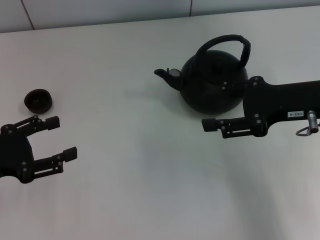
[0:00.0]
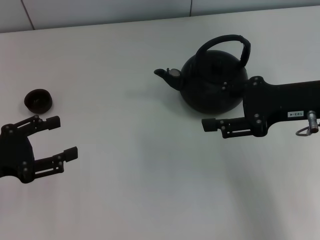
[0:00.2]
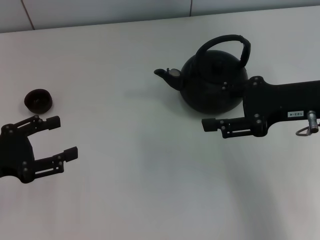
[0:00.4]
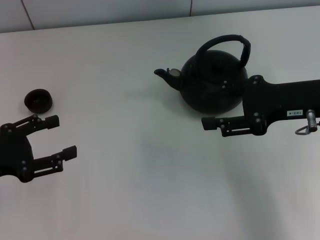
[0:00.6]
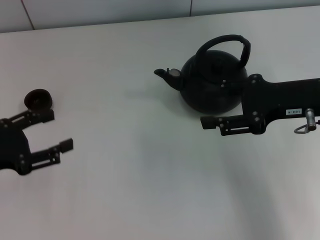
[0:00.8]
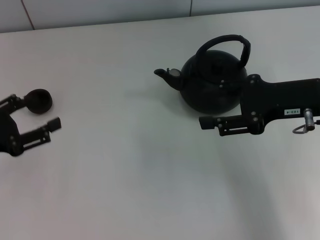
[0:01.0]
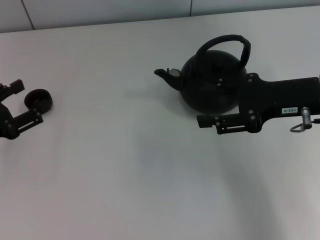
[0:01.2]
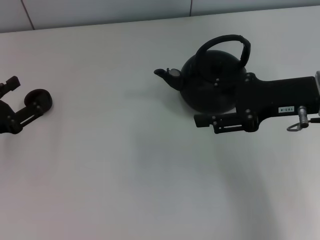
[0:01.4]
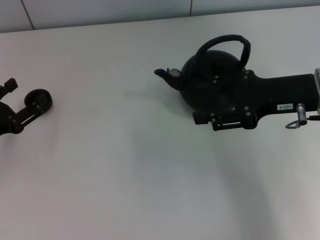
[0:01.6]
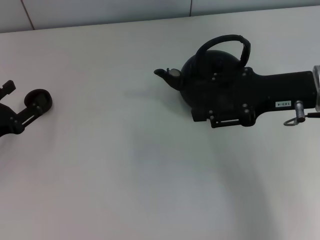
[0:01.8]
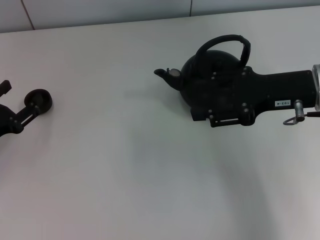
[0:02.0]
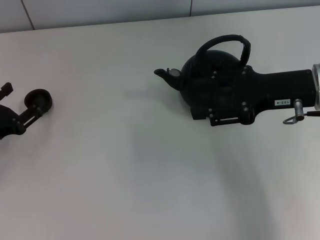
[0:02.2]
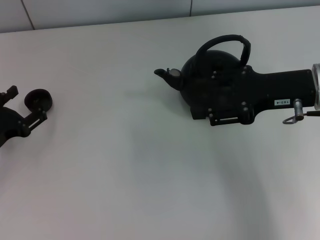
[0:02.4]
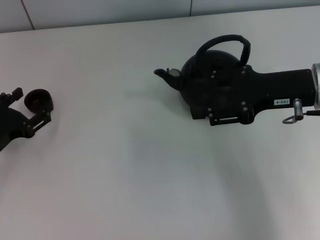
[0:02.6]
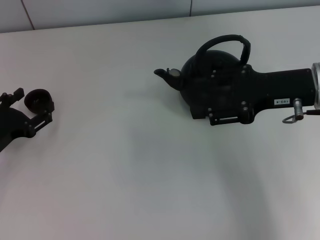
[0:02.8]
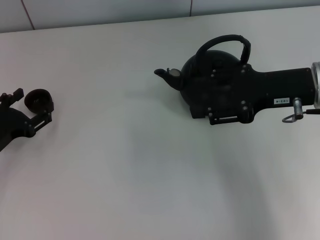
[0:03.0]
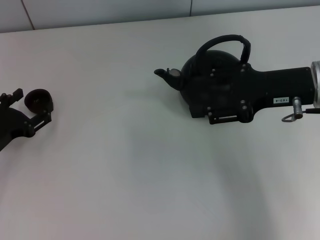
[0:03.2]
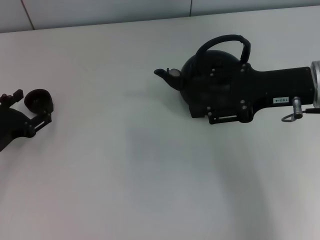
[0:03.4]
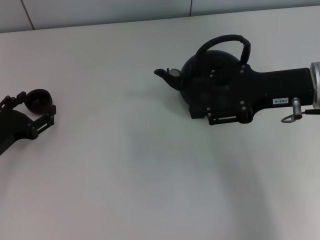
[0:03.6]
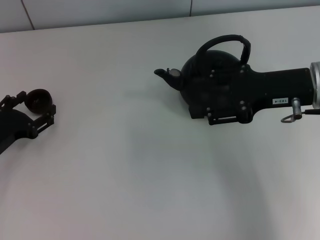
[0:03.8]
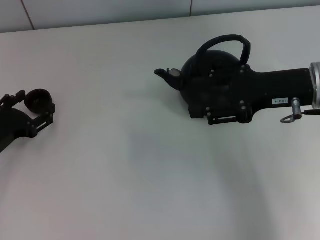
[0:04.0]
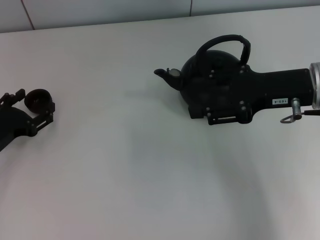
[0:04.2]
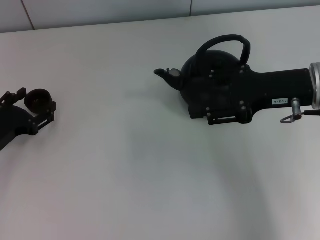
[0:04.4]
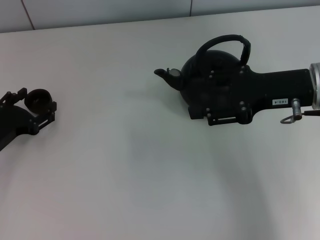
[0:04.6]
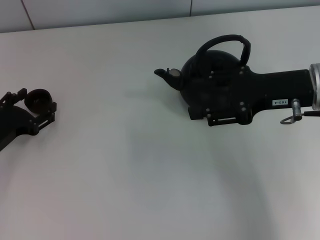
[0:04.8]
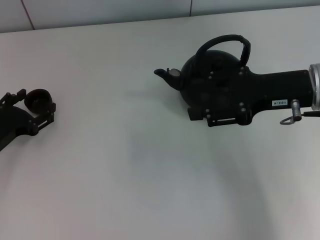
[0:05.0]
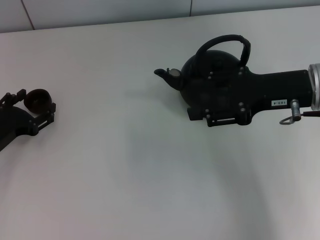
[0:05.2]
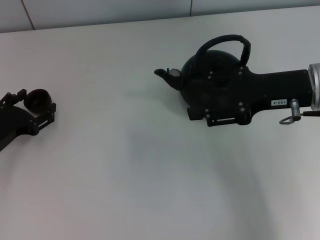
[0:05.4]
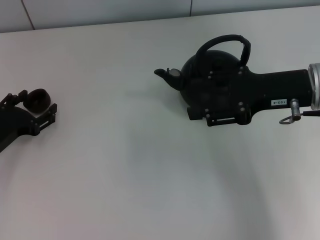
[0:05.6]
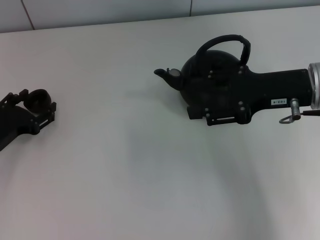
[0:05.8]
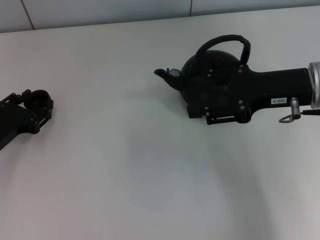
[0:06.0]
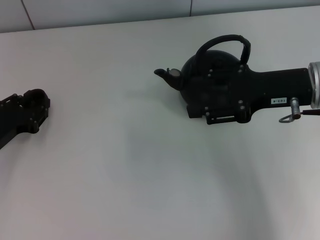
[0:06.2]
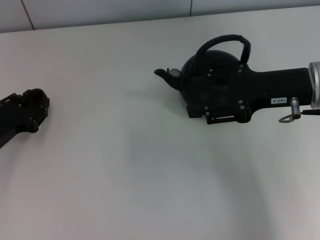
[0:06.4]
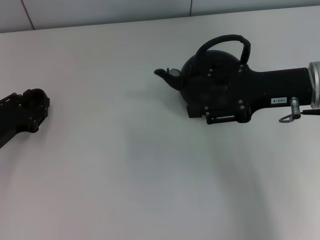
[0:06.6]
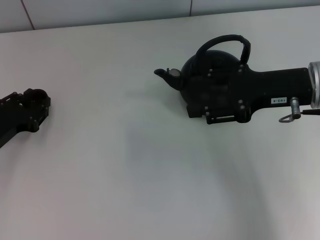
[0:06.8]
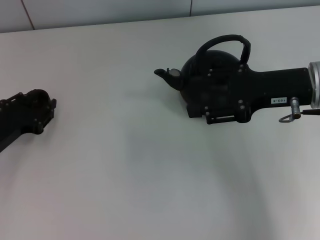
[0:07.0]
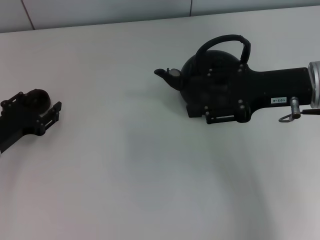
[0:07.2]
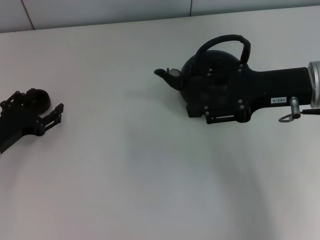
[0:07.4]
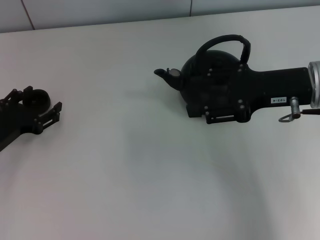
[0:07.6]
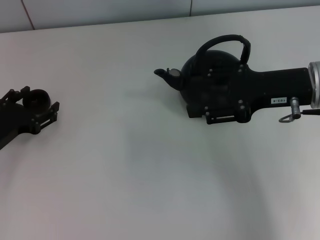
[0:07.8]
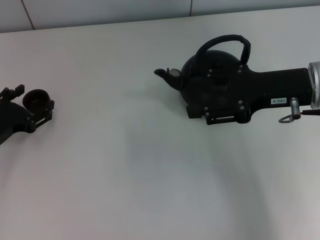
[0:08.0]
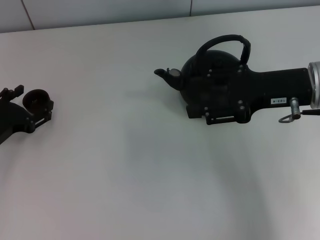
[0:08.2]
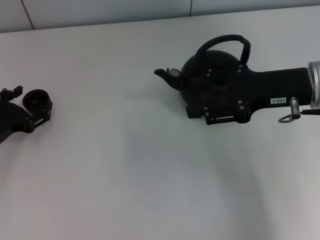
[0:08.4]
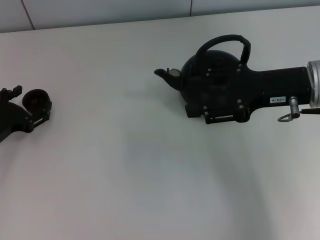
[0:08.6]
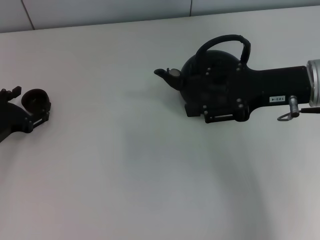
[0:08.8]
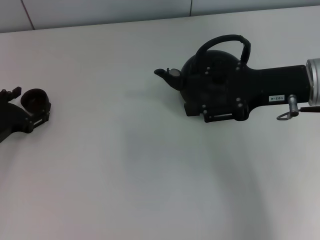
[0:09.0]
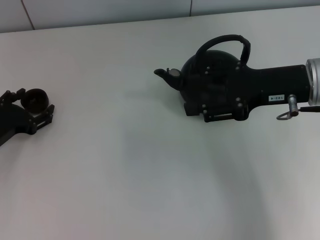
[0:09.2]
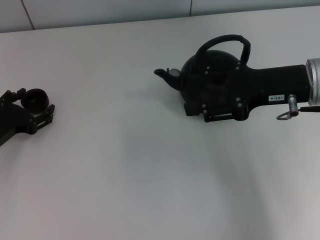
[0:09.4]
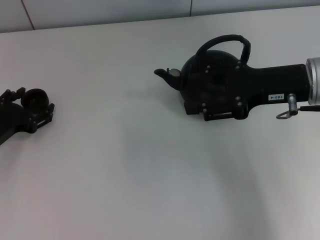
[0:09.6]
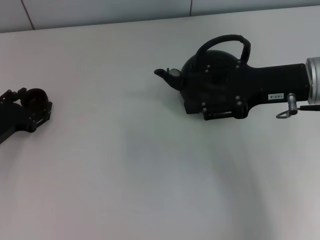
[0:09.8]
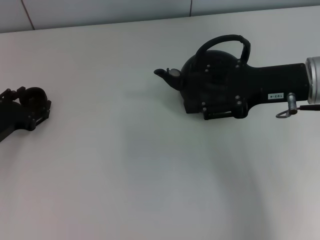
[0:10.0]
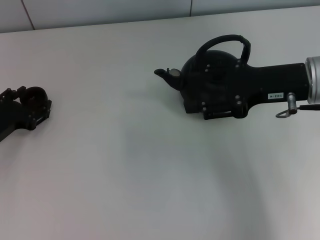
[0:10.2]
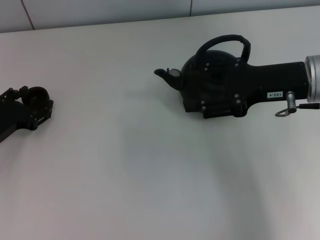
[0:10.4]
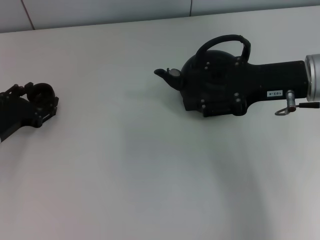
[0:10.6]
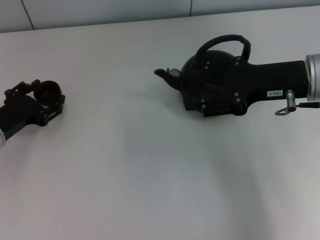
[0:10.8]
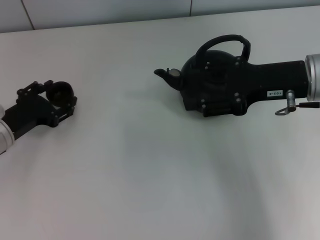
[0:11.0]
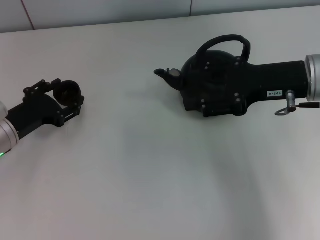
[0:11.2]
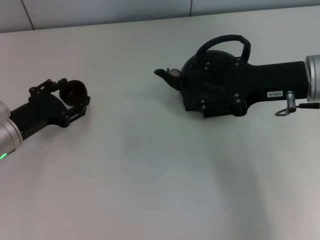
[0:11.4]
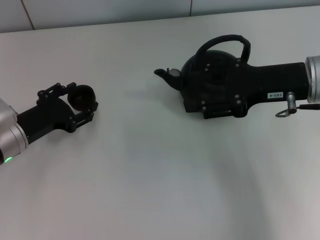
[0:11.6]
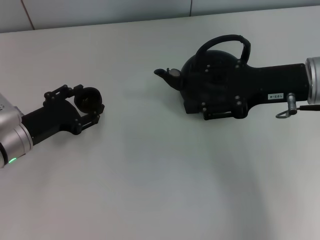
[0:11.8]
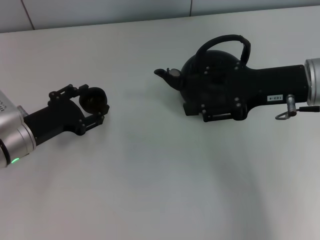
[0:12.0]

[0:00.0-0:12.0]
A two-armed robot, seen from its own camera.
Task of the whole recording: Grasp the handle of the teapot with one hand and pour tea into the teacup.
Step, 0:00.0 to 0:10.8: Pick up the teacup with the left gripper.
0:00.0 to 0:01.6: The left gripper moves roughly 5 cm.
0:01.6 to 0:03.0: The grippers make only small movements.
0:03.0 to 0:04.4: Both grippers stay put.
0:04.4 to 0:06.0: The two grippers keep their place.
0:06.0 to 0:07.6: The left gripper closes, then reopens.
0:07.6 to 0:09.0: There are only small adjustments of the grippers.
0:09.0 to 0:10.4: Both grippers stay about where they are.
0:10.4 to 0:12.0: The left gripper is displaced to the right by some 5 cm.

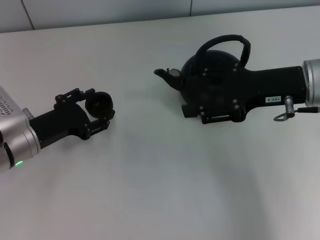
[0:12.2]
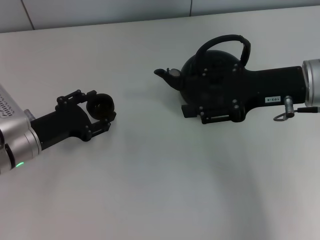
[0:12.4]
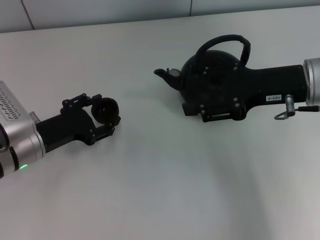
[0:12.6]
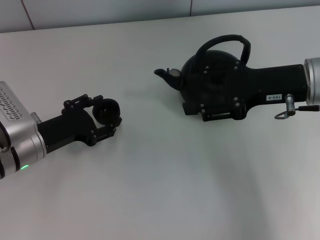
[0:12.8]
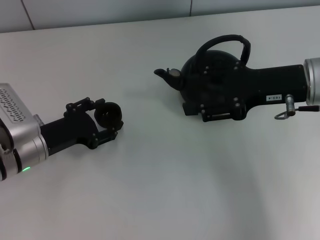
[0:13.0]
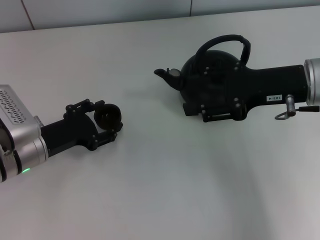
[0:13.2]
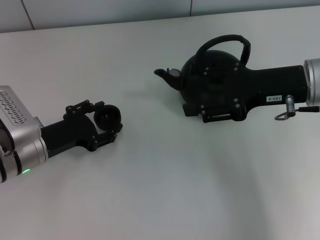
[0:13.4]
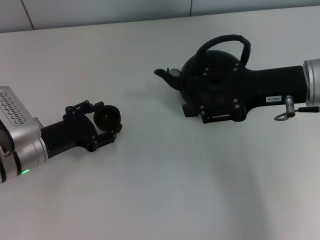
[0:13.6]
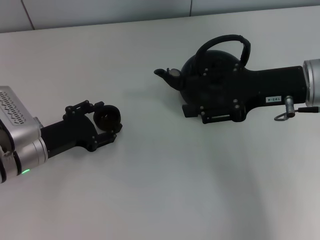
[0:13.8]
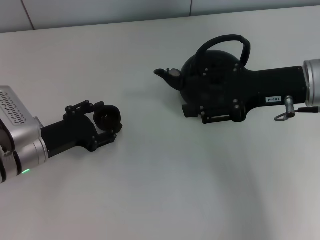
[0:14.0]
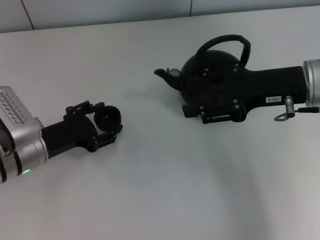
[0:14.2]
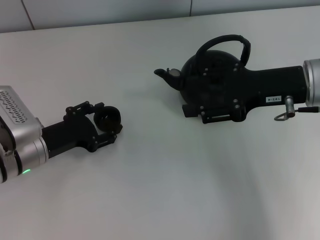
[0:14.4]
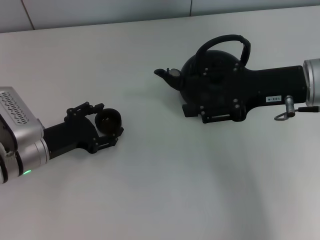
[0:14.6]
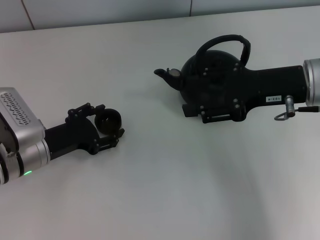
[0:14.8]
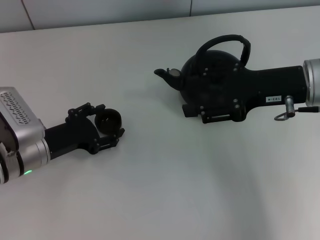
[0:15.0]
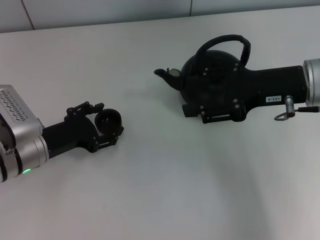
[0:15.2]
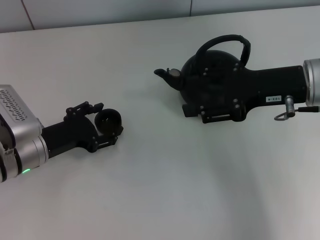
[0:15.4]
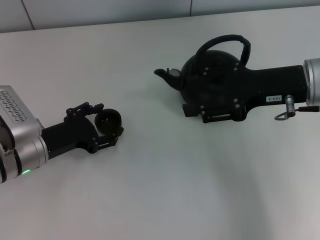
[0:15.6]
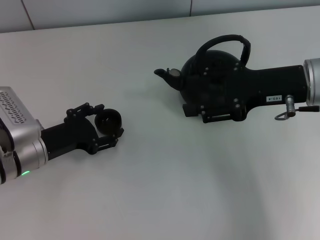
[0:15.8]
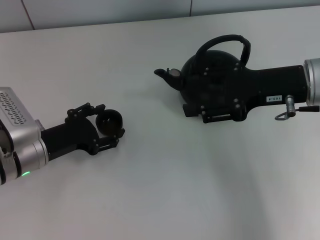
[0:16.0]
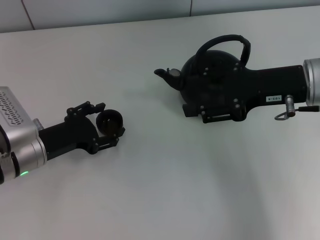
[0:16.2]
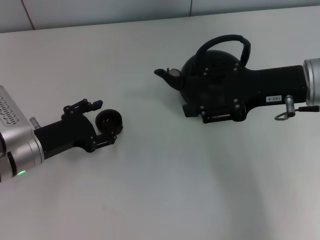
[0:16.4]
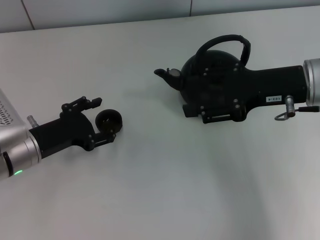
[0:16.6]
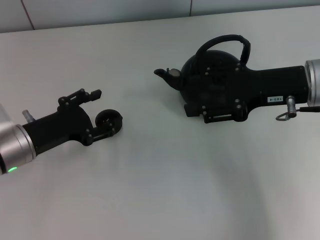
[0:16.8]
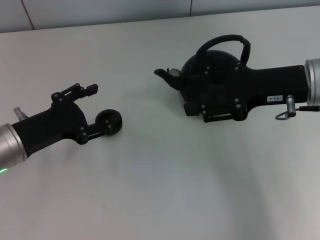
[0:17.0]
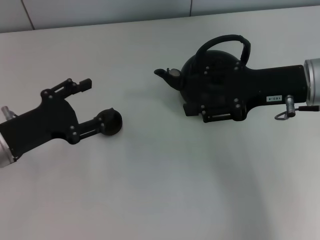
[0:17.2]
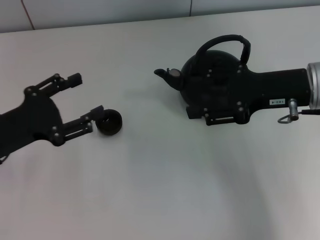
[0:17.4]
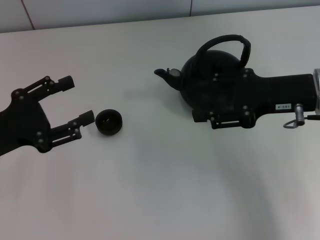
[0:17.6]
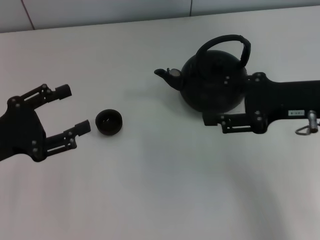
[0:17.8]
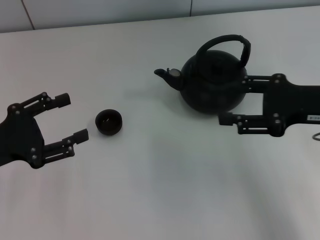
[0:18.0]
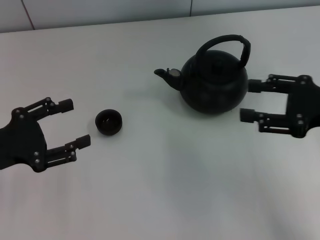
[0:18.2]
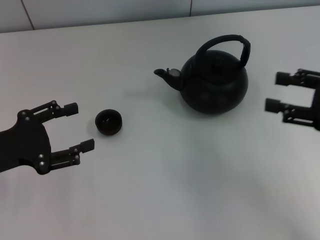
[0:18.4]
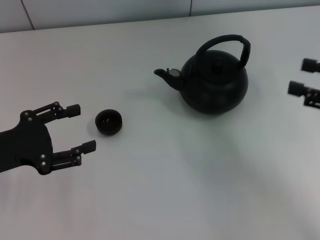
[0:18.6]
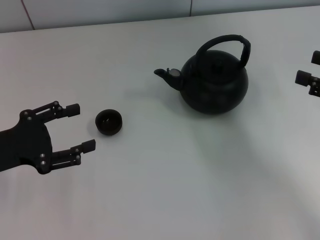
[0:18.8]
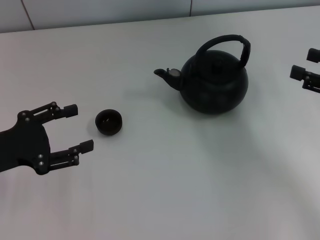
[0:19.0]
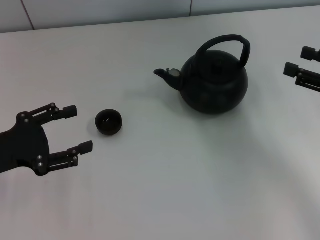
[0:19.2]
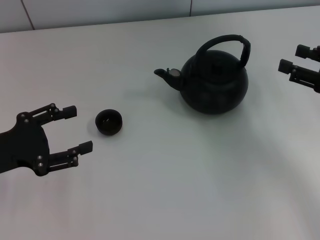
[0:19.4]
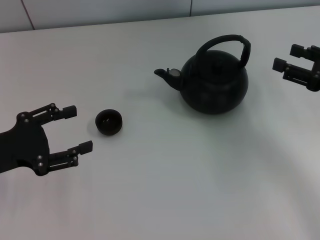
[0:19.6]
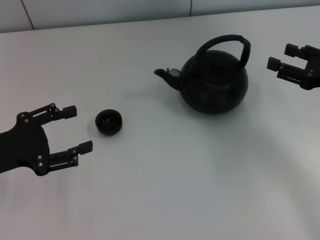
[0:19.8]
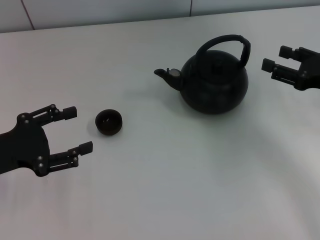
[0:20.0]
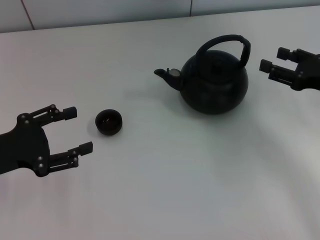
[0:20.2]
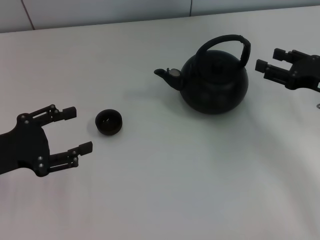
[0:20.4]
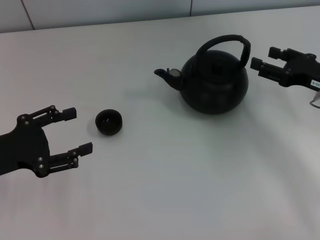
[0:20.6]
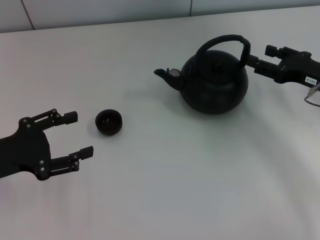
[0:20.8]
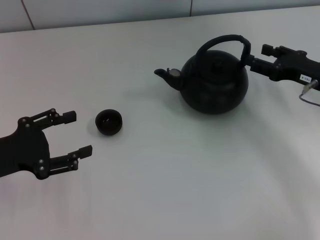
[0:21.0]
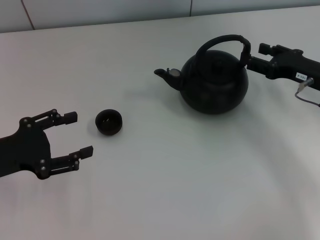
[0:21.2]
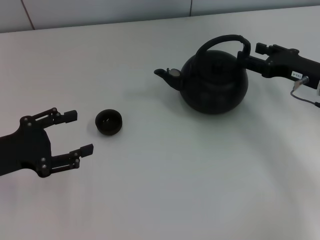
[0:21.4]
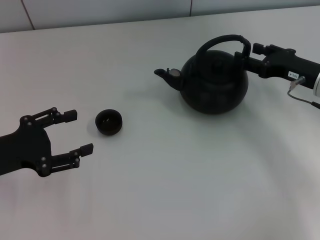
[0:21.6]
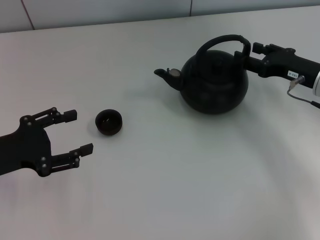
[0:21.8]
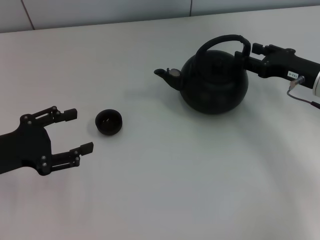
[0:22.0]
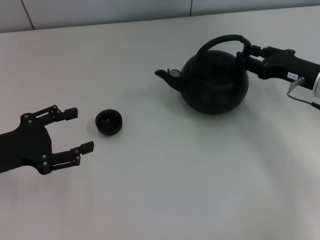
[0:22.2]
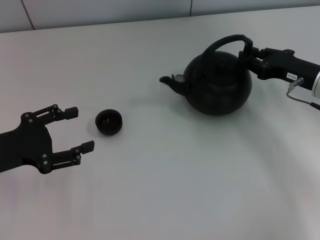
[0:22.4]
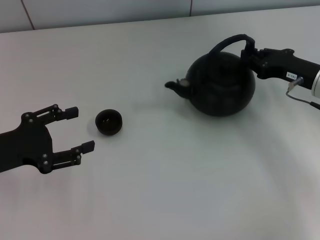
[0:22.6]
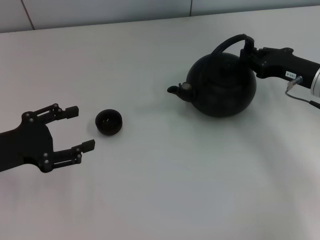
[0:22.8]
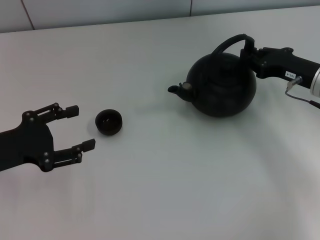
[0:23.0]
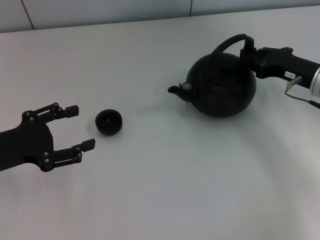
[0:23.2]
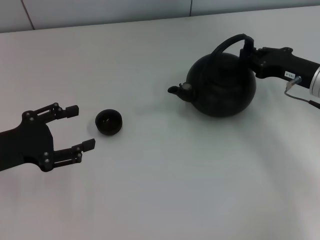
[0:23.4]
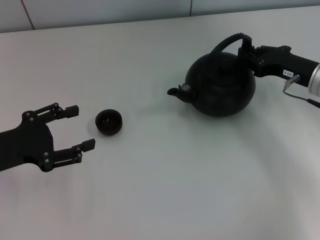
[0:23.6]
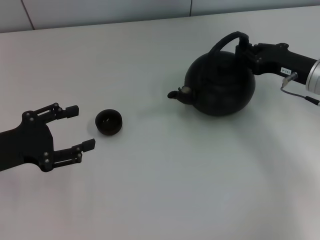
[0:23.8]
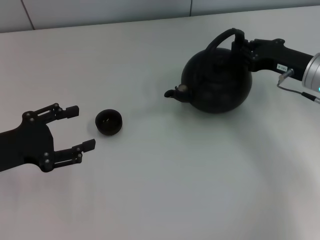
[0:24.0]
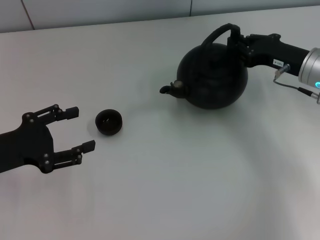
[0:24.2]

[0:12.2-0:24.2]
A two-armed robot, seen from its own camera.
Task of the whole recording: Grasp the handle of the teapot with one hand and pour tea into the teacup.
Step, 0:12.2 to 0:16.6: Place the teacup in the center of view with the left gripper.
0:12.2 to 0:13.8: Neither gripper changes place.
0:13.8 to 0:15.2: Both grippers stay about where they are.
0:15.2 to 0:16.6: The grippers make only small movements.
0:16.6 to 0:18.2: The left gripper is displaced to the left and upward by approximately 10 cm. The right gripper is displaced backward and to the right by about 10 cm.
0:18.2 to 0:19.8: The right gripper changes place by some 5 cm.
0:19.8 to 0:21.2: The right gripper changes place by some 5 cm.
0:21.2 to 0:22.6: The right gripper closes.
0:22.6 to 0:24.2: The grippers stay close to where they were, moving slightly.
